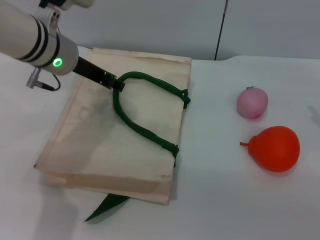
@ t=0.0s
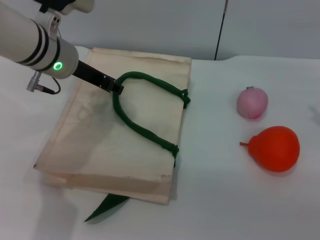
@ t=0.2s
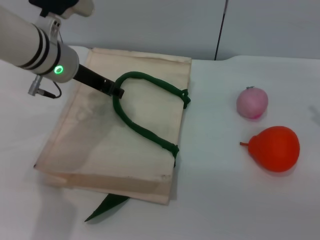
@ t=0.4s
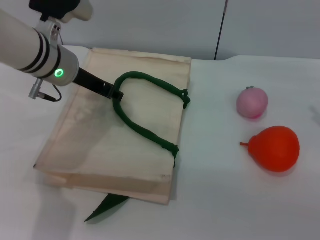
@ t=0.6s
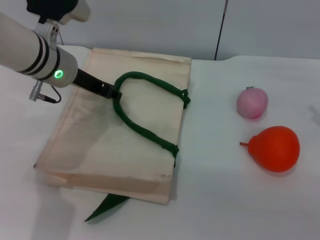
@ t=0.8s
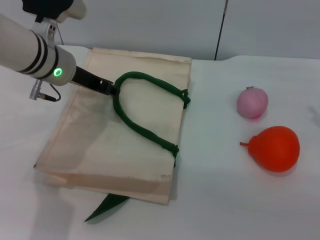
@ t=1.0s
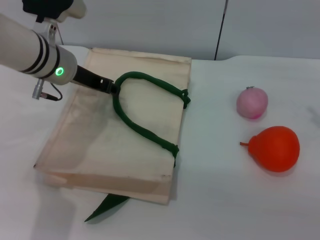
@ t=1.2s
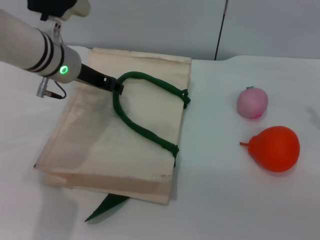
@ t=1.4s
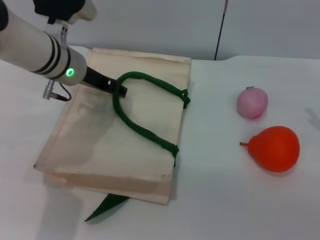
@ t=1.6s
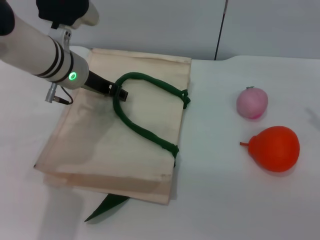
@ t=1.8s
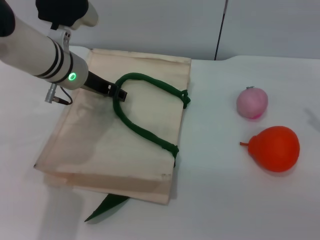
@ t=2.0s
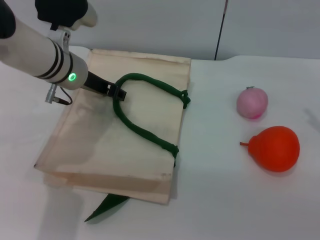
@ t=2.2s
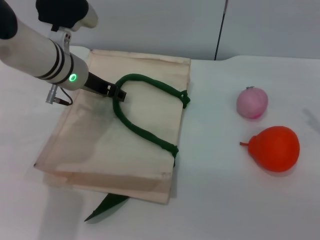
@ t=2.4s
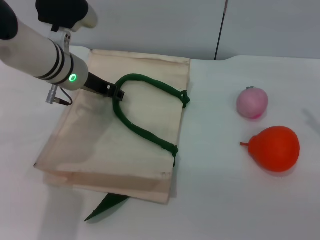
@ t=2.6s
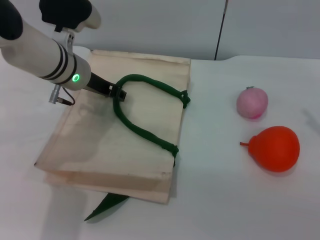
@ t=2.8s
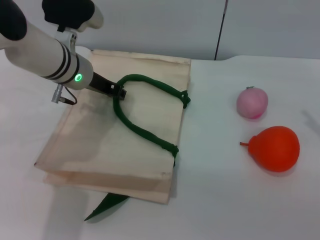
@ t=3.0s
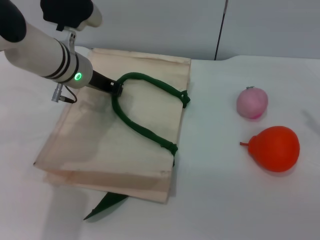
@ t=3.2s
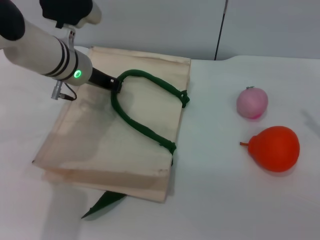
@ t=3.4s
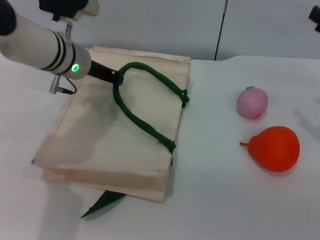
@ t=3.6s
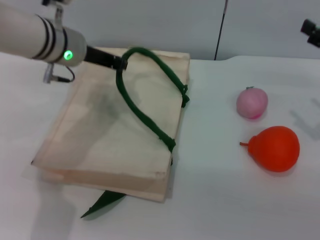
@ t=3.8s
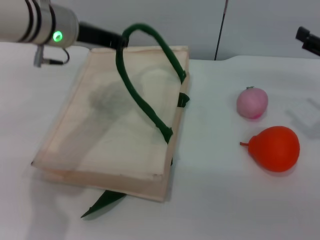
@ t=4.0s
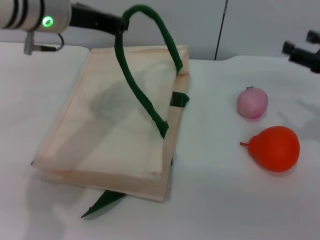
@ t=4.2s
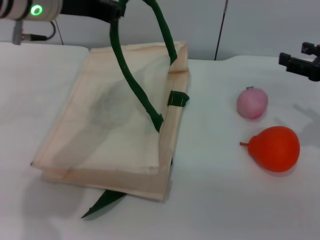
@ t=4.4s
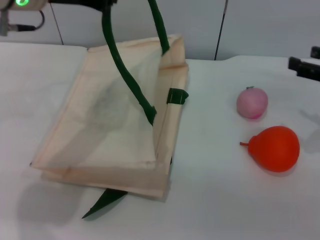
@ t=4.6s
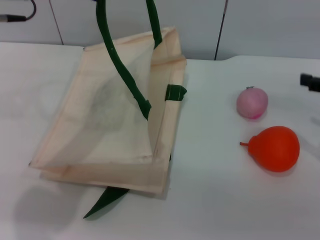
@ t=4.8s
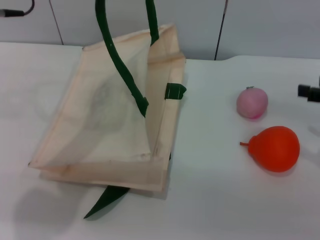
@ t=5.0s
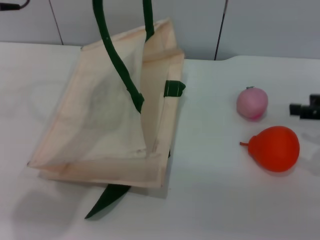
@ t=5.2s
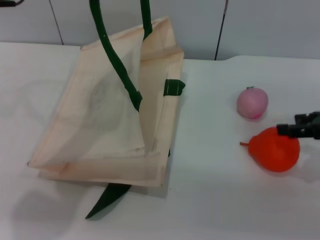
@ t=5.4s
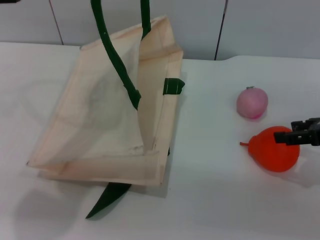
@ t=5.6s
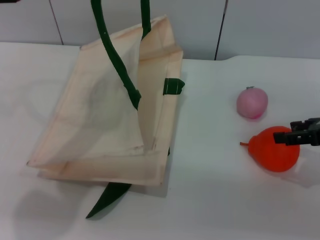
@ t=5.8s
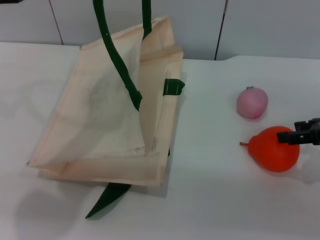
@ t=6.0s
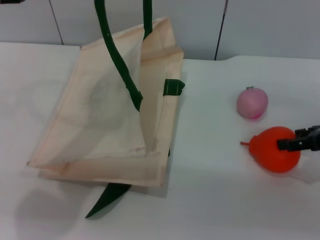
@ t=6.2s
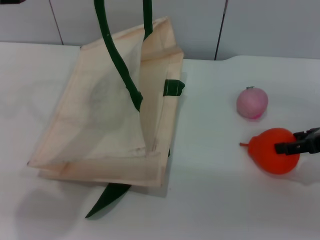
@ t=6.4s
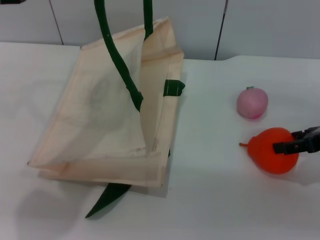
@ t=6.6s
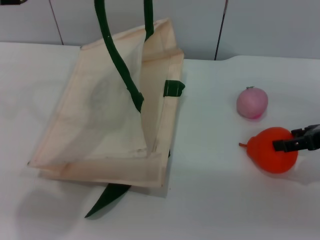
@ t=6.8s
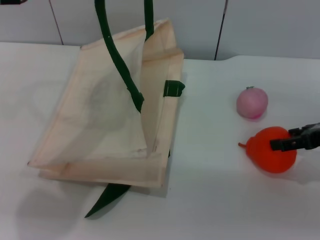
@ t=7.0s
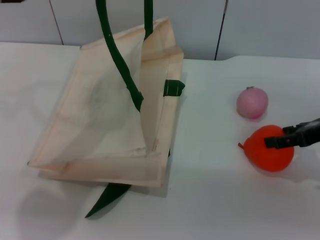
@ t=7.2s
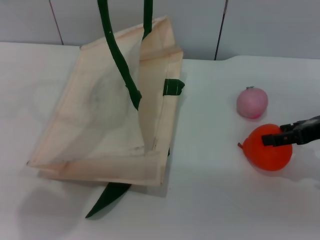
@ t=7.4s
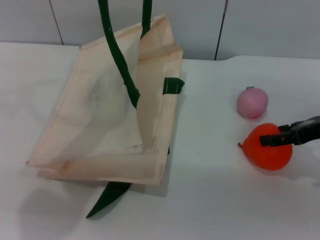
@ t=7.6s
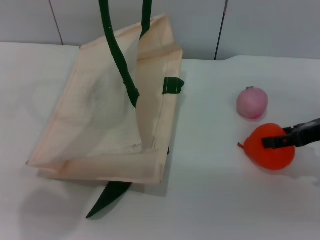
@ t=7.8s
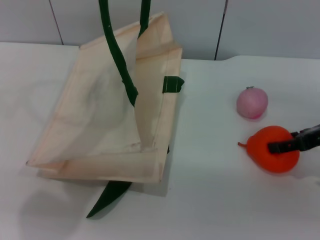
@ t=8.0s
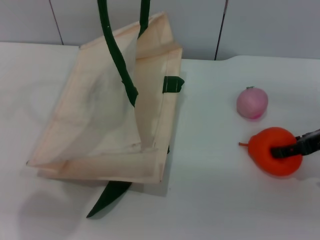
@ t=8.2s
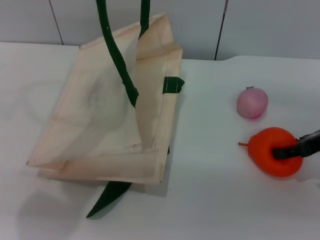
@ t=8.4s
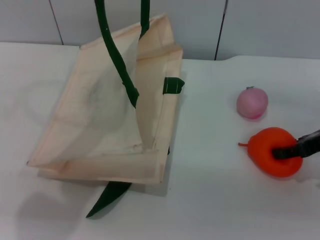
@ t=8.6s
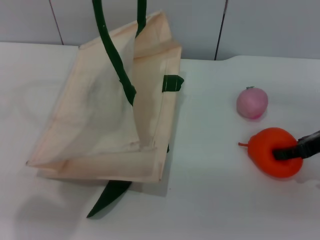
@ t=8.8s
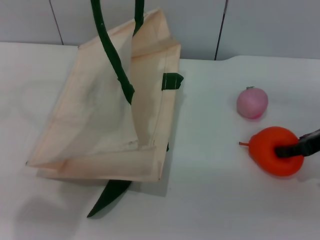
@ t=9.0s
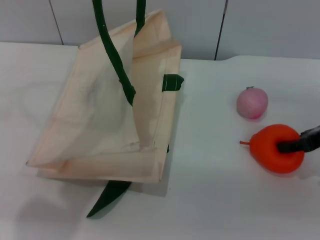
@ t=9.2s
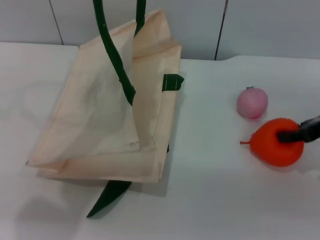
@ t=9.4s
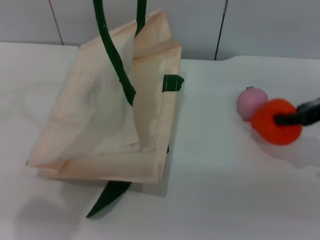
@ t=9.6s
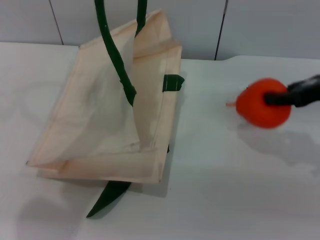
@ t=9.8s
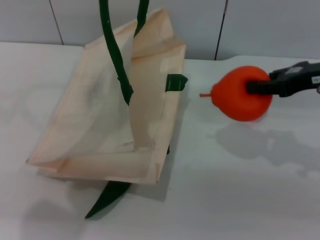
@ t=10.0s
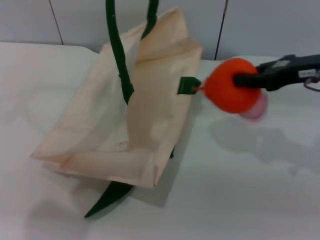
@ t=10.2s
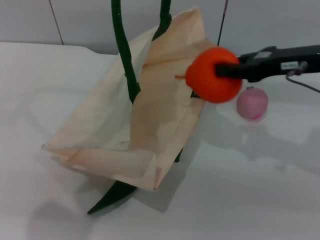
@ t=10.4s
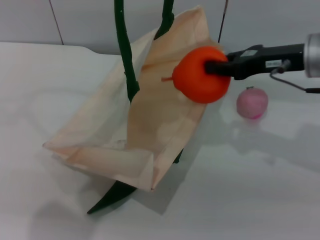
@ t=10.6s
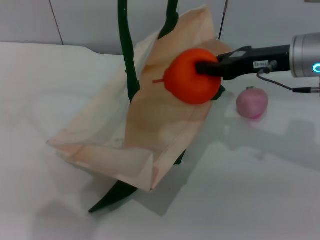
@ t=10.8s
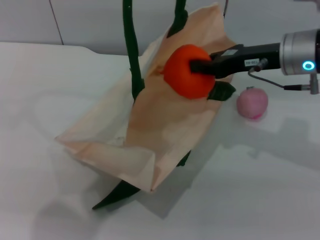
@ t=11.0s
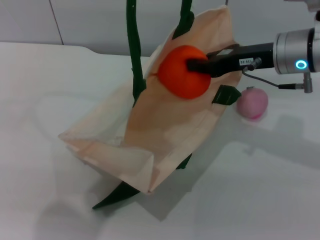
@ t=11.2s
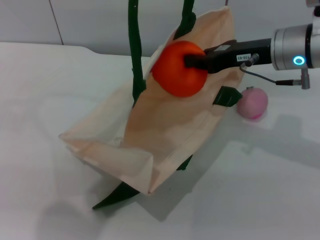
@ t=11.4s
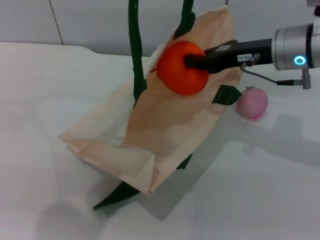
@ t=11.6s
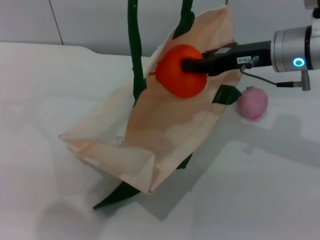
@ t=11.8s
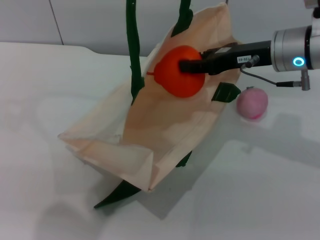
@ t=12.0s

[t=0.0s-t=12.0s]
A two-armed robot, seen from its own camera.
Task of the whole recording: pick up the orange and peach from the table and place it in the white handbag.
Step, t=0.0s to t=4.0s: Lift the woven bag with the left gripper to open it.
Step, t=4.2s to t=9.6s: Pick up the orange with the right gripper.
t=0.0s to t=3.0s: The grippers make only small movements.
t=3.0s to t=4.4s: The left gripper shifts approximately 15 cm upward, and closes up.
t=4.4s to t=6.0s: The left gripper travels upward by roughly 5 cm.
t=6.0s to t=7.6s: The grippers stay close to where they were, moving slightly.
t=7.6s to t=9.0s: The right gripper closes its fingers.
t=9.0s to t=10.4s: The right gripper travels upward and to the left by approximately 10 cm, and closes its fingers.
t=10.4s to t=12.0s: The right gripper ends up some 5 cm from where it was.

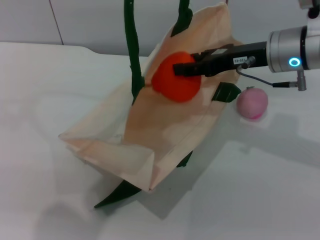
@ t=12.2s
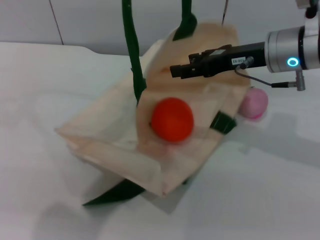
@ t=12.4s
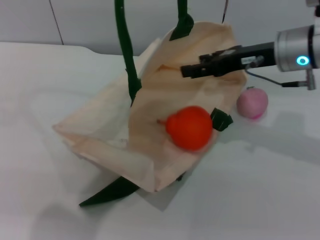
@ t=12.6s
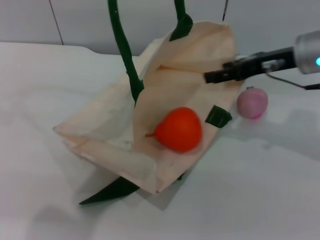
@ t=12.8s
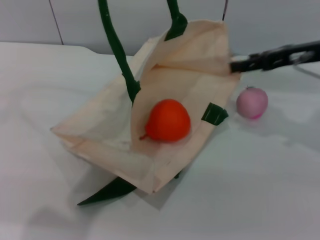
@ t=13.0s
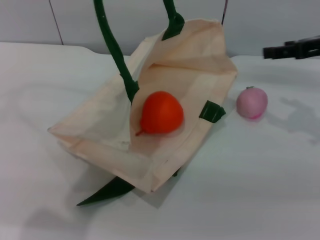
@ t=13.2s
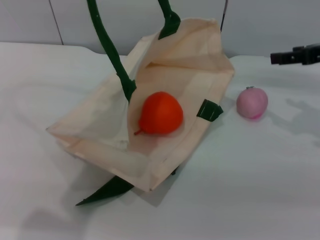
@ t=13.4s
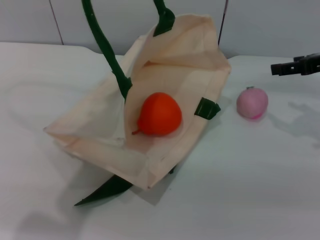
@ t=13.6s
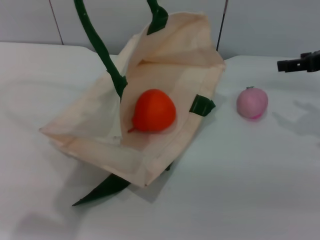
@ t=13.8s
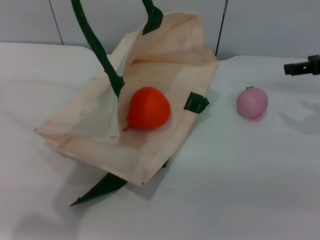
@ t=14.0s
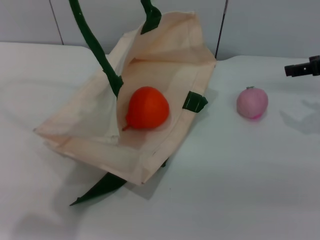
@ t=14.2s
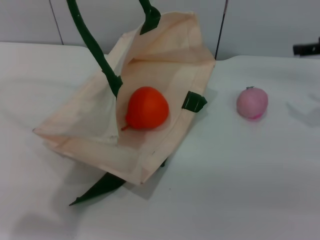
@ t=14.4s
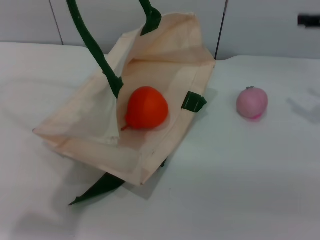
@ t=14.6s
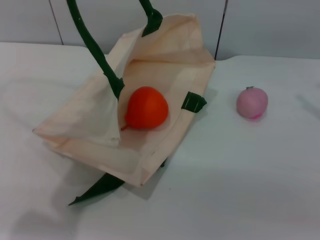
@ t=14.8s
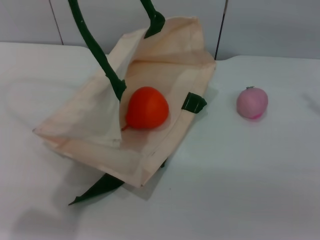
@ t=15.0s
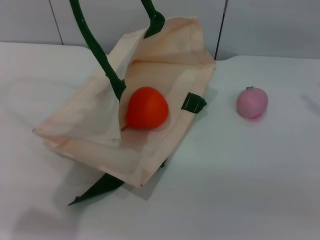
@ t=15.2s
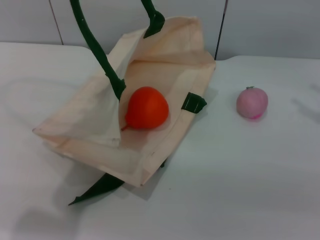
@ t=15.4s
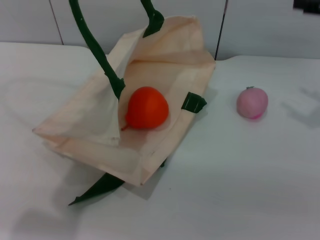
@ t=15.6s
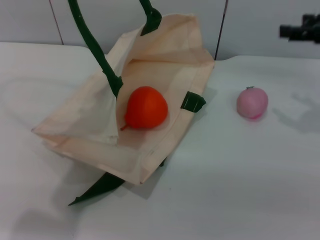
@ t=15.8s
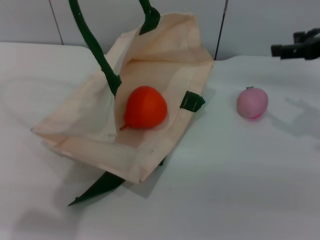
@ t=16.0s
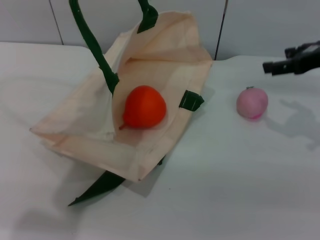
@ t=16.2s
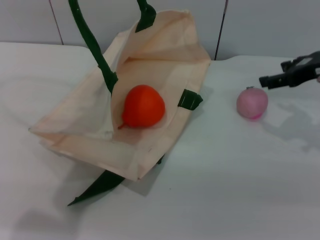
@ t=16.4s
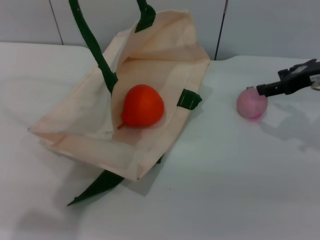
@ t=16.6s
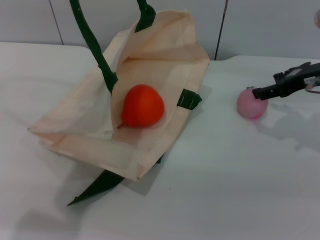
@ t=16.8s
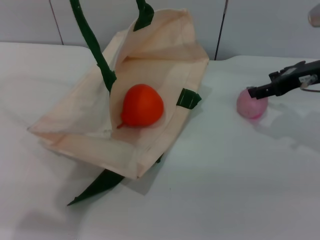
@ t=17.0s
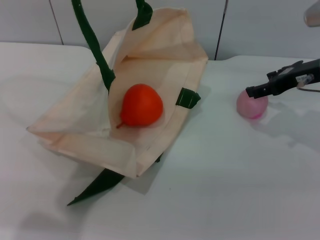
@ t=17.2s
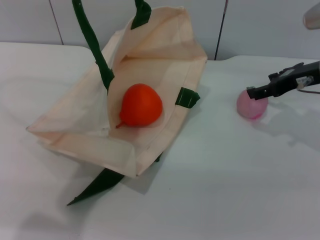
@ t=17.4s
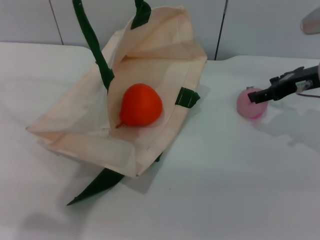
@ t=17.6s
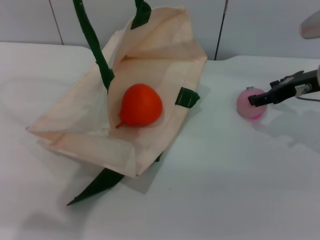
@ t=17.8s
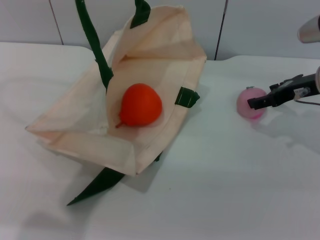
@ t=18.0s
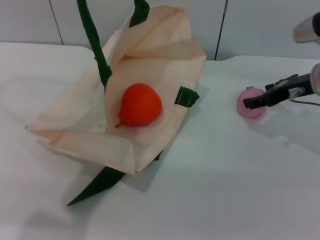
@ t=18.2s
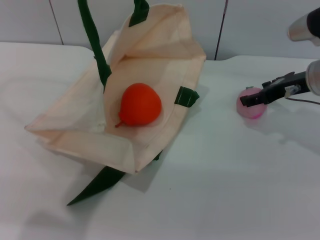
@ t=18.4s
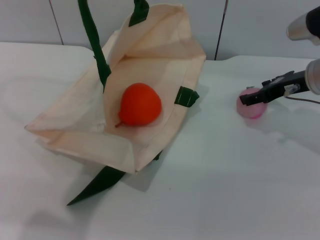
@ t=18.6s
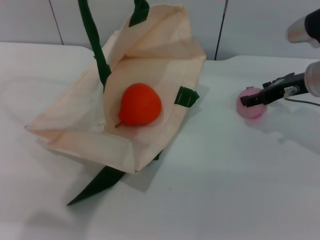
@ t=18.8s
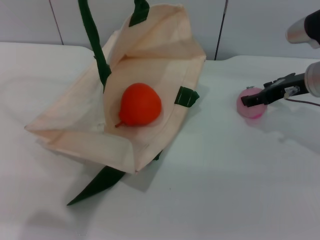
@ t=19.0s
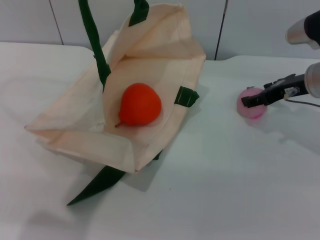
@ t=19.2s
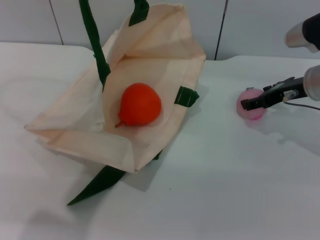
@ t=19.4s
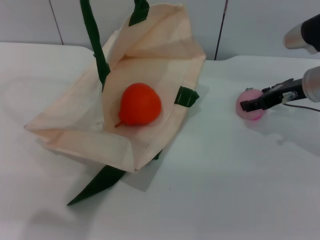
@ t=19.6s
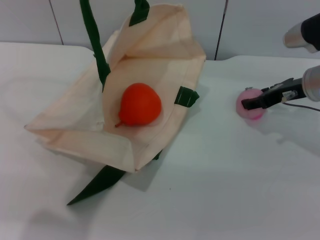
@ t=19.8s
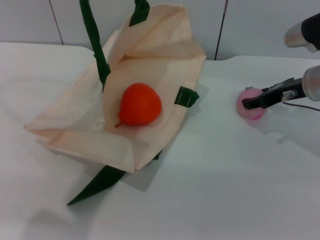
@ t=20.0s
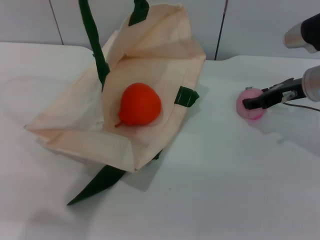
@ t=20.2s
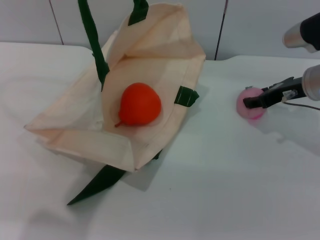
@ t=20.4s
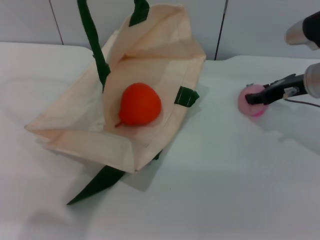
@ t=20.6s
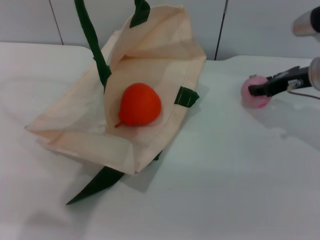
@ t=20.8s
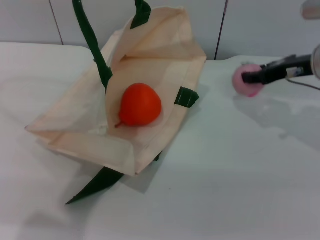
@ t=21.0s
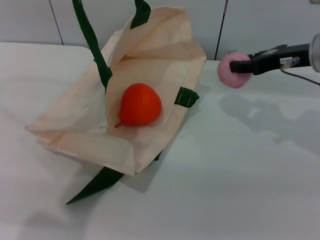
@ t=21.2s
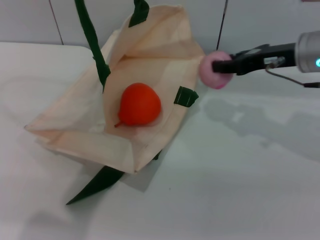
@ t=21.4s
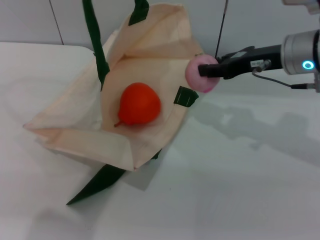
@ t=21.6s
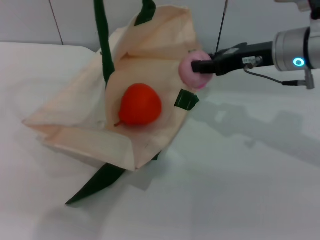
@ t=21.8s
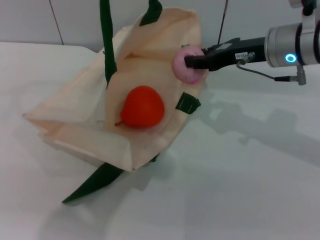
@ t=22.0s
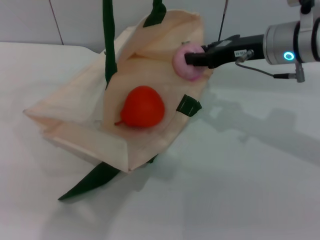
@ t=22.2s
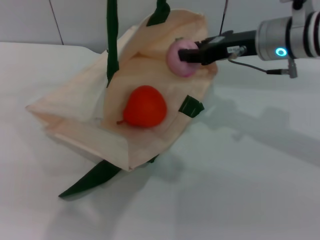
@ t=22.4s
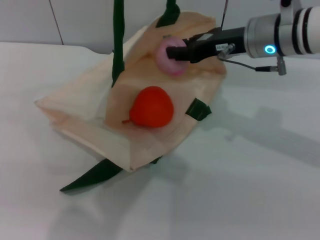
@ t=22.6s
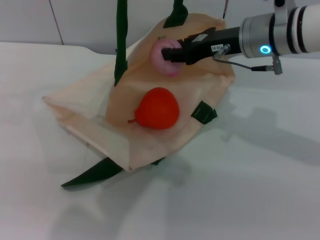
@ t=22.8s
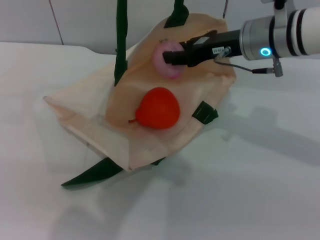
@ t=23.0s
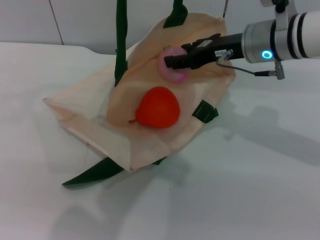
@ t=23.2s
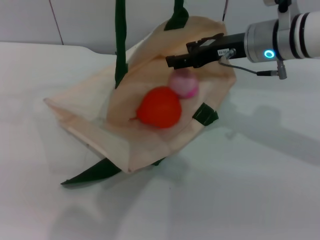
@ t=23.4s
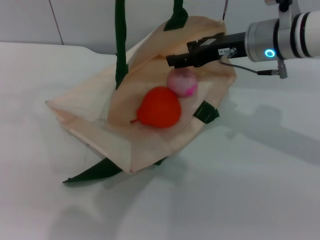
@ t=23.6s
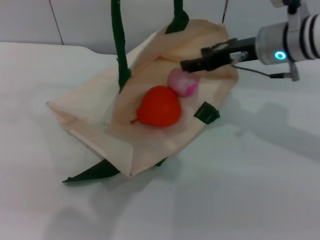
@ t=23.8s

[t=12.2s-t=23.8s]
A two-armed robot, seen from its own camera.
Task of the whole recording: pick up the orange and peach from the table and place it in the white handbag.
Step, t=12.4s to t=20.8s: Pick up the peach with the right gripper.
Step, t=21.0s to t=23.8s: Place the peach into the woven bag with the right gripper.
t=12.2s to t=13.6s: The right gripper goes approximately 10 cm to the right, and opens up.
t=13.6s to t=15.0s: The right gripper moves upward, about 5 cm.
t=15.0s to t=16.6s: The right gripper heads downward and to the left, covering approximately 10 cm.
t=16.6s to t=19.4s: The grippers stay close to where they were, moving slightly.
t=19.4s to t=21.0s: The right gripper closes its fingers.
t=21.0s to t=22.4s: The right gripper moves to the left, roughly 10 cm; the left gripper goes about 5 cm to the right.
t=22.4s to t=23.8s: The right gripper opens its fingers.
